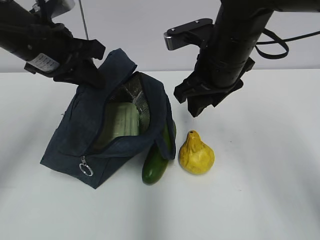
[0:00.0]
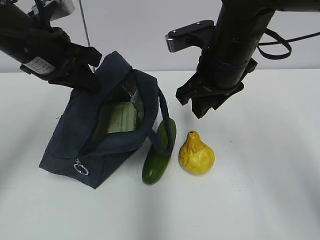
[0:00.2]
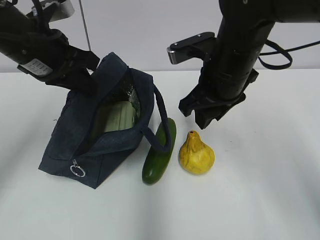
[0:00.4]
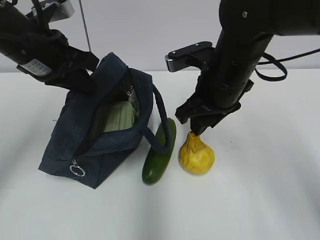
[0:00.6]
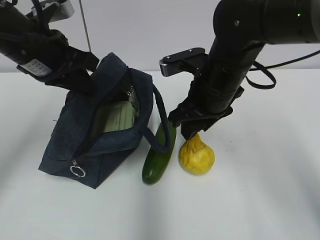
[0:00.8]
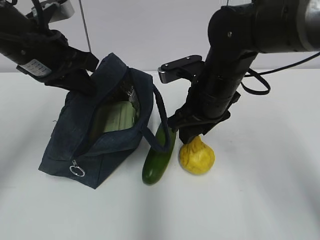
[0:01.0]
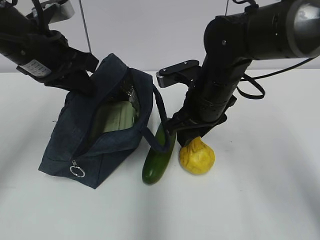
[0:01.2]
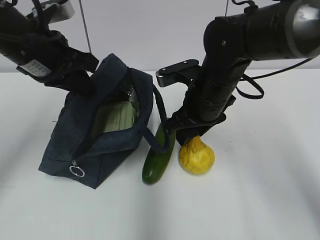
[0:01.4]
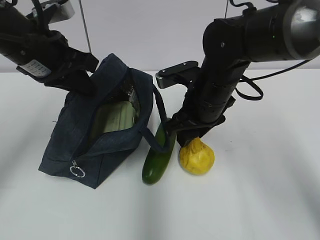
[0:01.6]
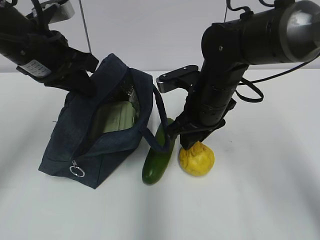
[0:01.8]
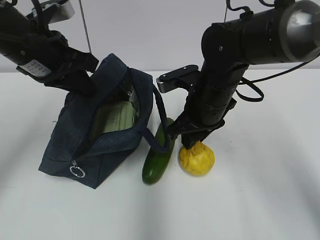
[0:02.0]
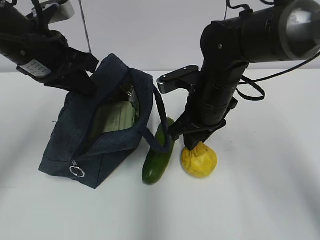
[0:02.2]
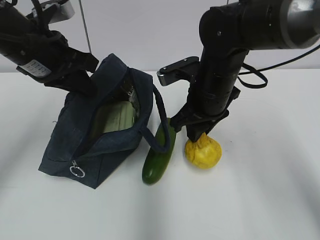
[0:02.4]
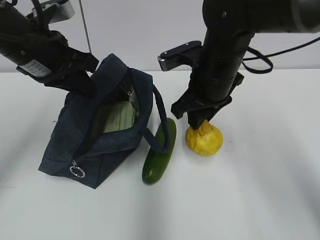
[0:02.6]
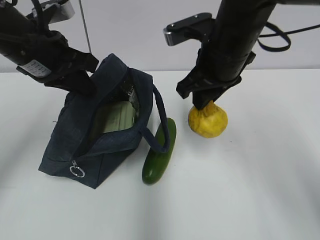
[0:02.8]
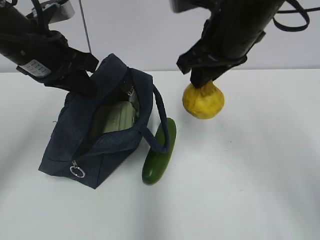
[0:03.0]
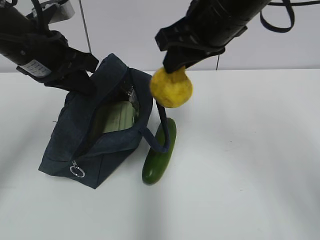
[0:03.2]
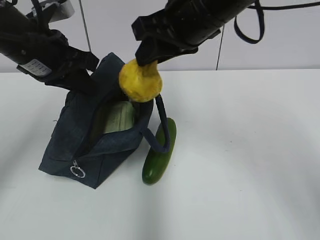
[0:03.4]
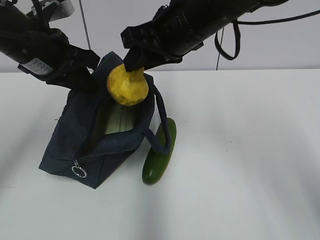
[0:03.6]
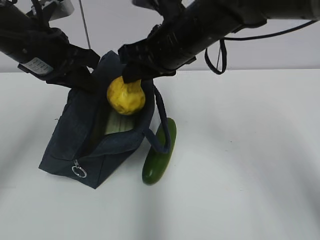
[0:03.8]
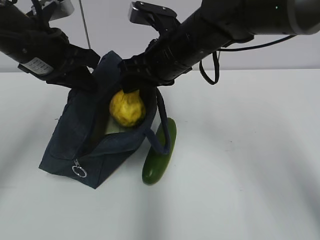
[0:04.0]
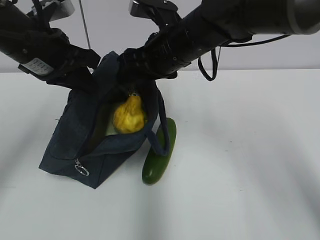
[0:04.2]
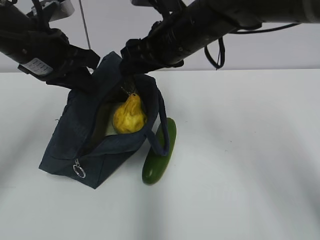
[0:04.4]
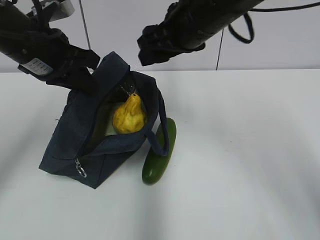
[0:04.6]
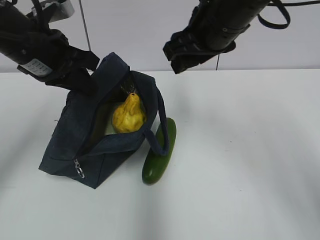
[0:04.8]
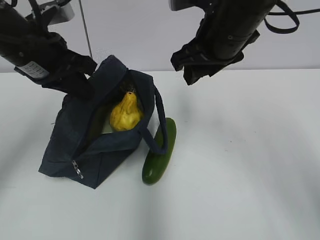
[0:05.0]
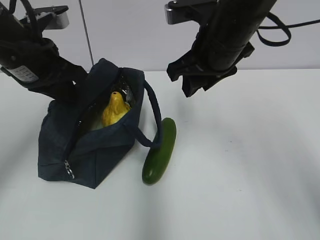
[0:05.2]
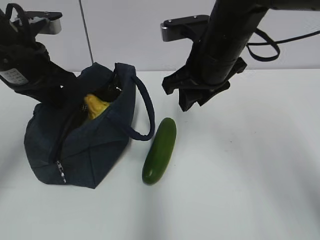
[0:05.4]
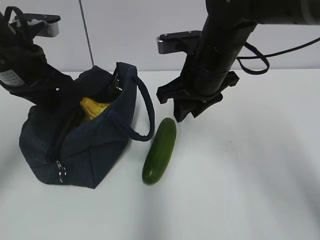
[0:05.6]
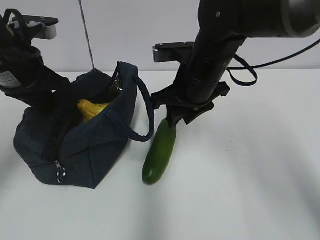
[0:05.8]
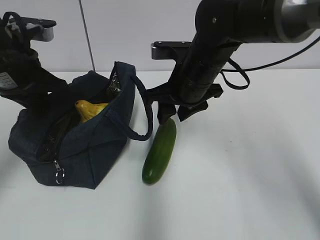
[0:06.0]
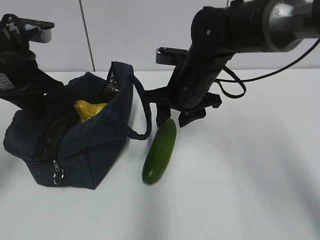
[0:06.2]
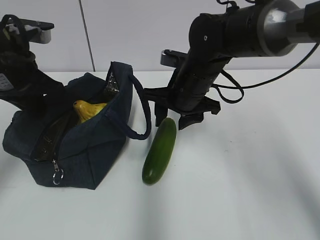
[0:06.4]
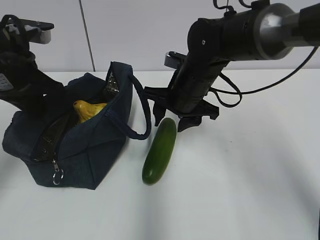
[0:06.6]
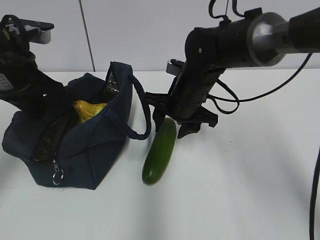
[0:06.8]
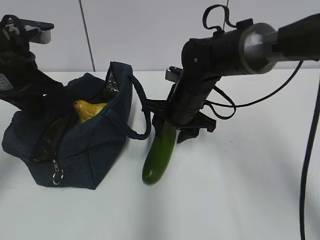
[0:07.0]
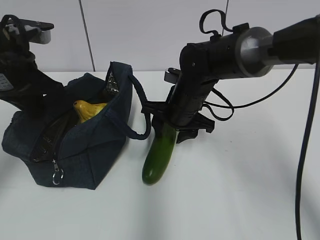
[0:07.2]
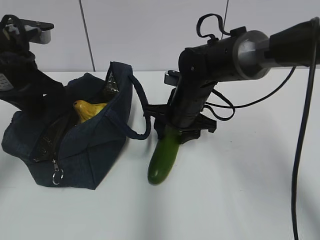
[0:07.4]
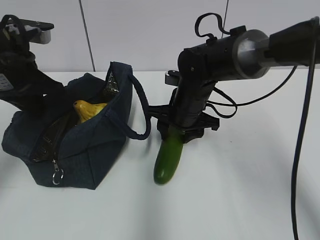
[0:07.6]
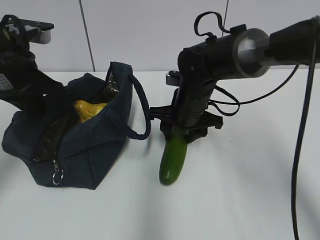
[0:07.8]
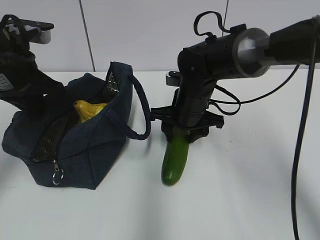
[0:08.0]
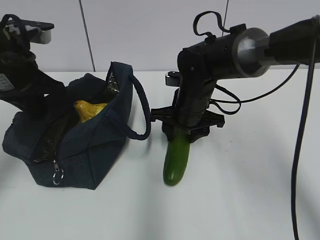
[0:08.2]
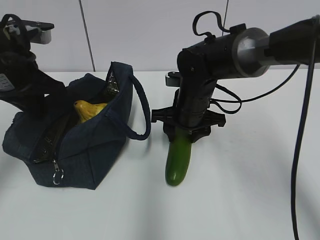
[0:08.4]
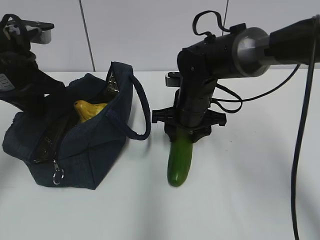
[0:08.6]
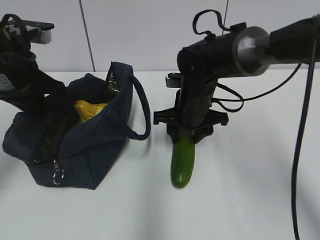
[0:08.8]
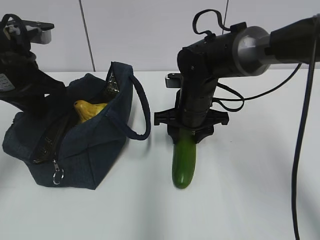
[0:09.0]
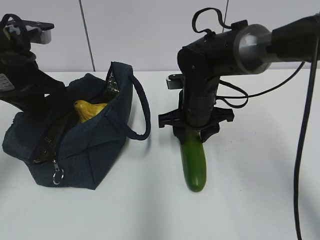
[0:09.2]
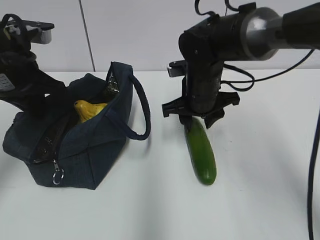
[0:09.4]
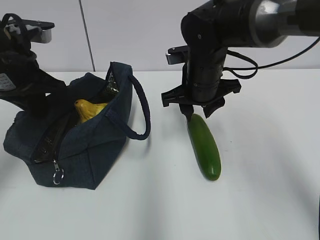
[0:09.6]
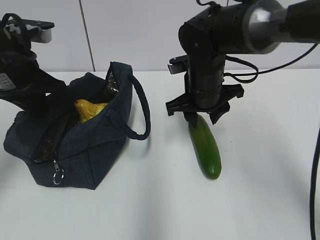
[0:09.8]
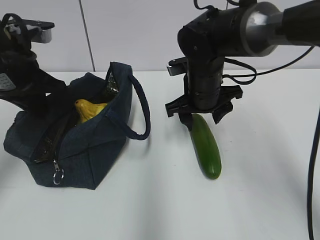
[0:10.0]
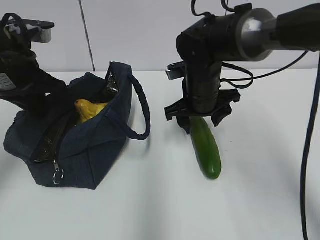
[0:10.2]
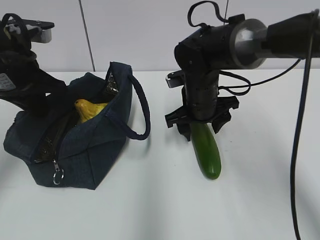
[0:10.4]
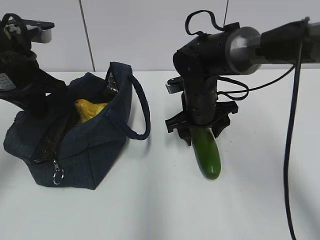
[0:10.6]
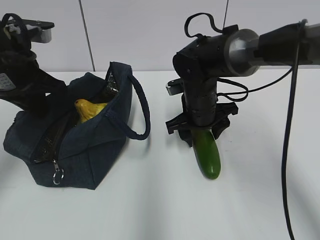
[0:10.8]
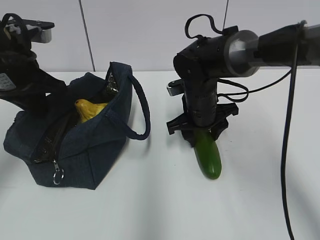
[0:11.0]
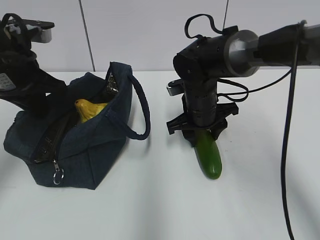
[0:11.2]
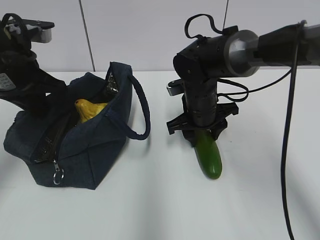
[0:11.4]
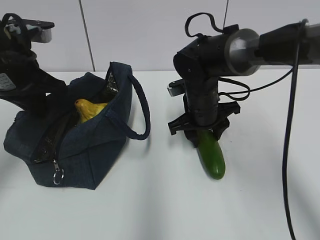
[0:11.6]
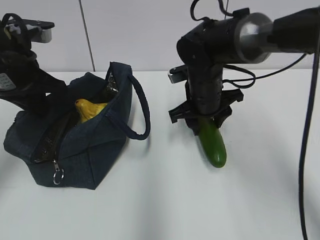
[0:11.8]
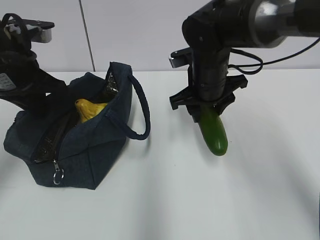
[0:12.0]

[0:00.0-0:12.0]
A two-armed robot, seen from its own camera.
Step, 0:00.0 to 0:01.6: Grab the pear with your right hand.
Step, 0:01.8 to 0:04.0: Place it into the bag with your right hand.
Step, 0:04.2 to 0:07.4: Grab the cucumber with your right hand.
0:00.0 to 0:01.6: The right gripper is displaced downward by approximately 5 cm.
0:01.6 to 0:03.0: The right gripper heads upward, covering approximately 15 cm.
0:03.0 to 0:04.4: The right gripper is displaced to the left by about 5 cm, and opens.
0:04.4 to 0:06.0: The right gripper moves downward, about 5 cm.
0:06.0 to 0:07.6: The right gripper heads downward, covering roughly 5 cm.
0:07.6 to 0:09.0: The grippers move only a little.
0:09.0 to 0:12.0: The grippers stay close to where they were, moving slightly.

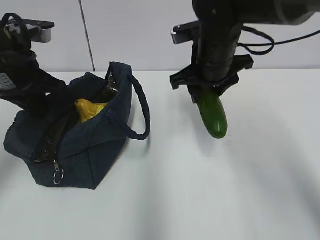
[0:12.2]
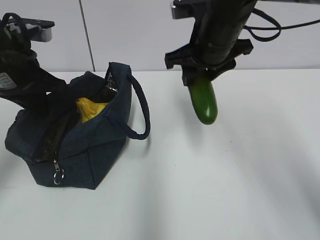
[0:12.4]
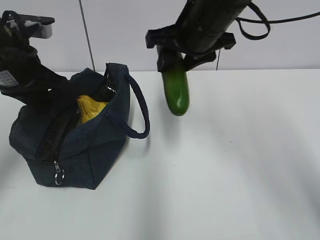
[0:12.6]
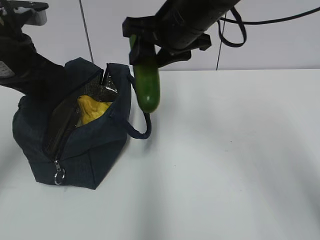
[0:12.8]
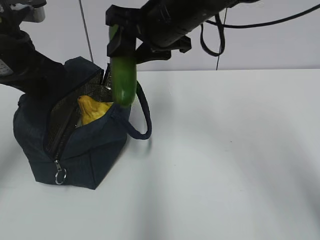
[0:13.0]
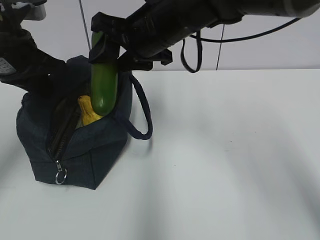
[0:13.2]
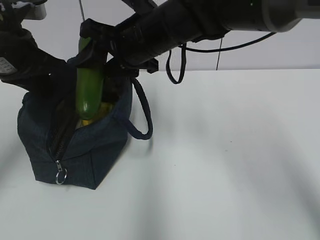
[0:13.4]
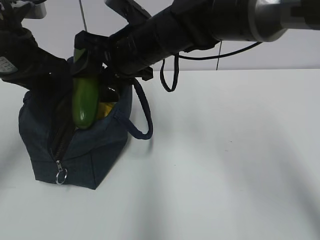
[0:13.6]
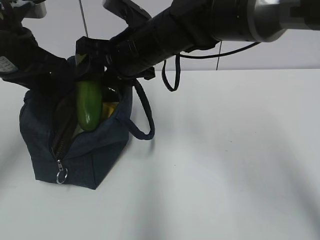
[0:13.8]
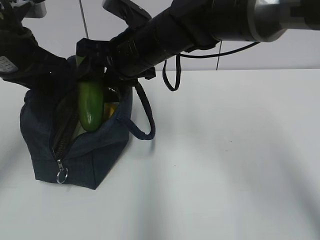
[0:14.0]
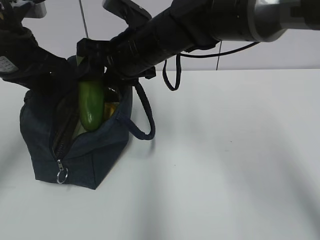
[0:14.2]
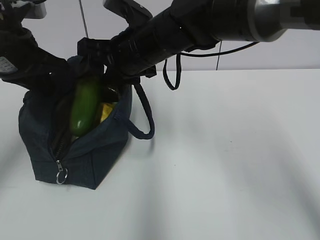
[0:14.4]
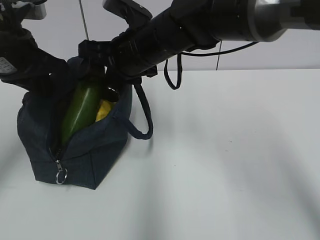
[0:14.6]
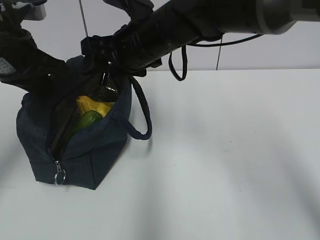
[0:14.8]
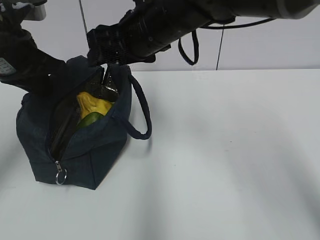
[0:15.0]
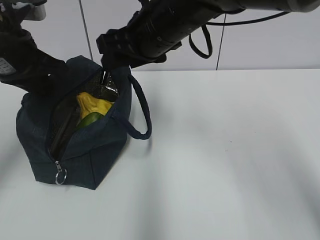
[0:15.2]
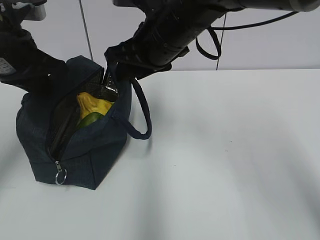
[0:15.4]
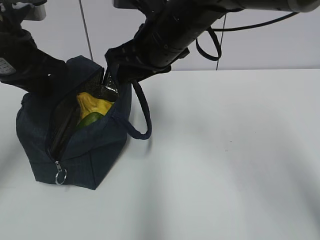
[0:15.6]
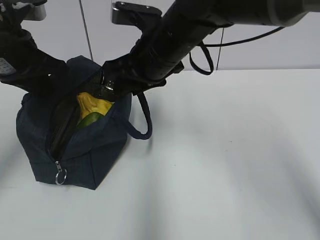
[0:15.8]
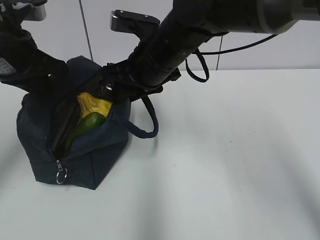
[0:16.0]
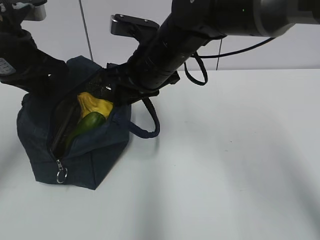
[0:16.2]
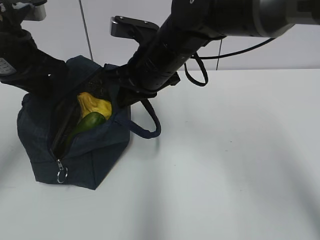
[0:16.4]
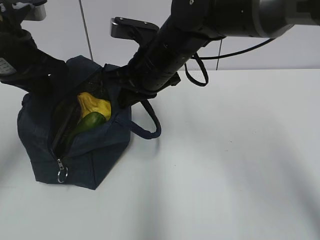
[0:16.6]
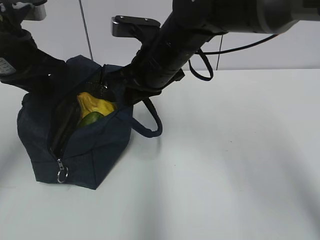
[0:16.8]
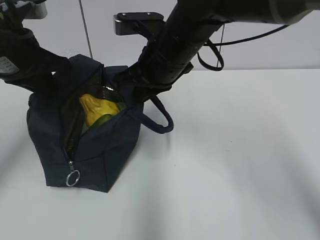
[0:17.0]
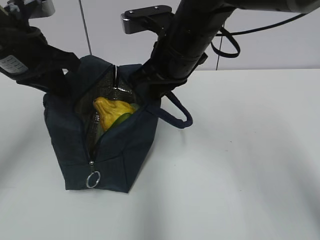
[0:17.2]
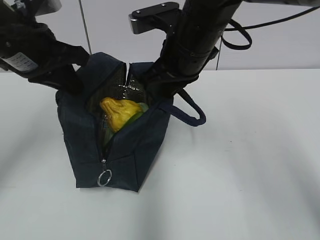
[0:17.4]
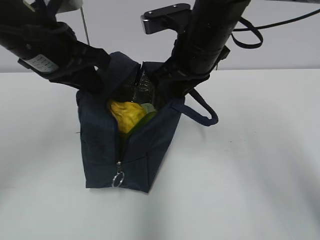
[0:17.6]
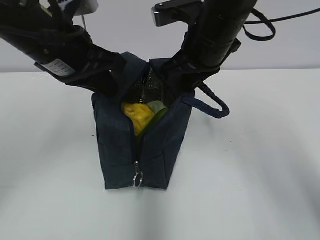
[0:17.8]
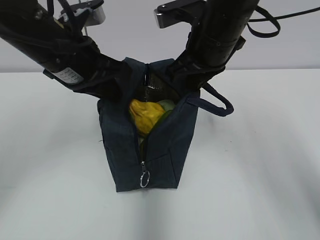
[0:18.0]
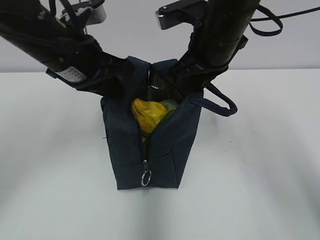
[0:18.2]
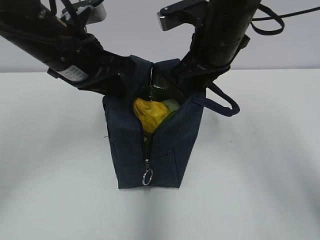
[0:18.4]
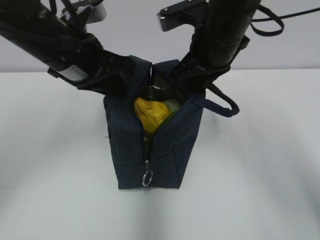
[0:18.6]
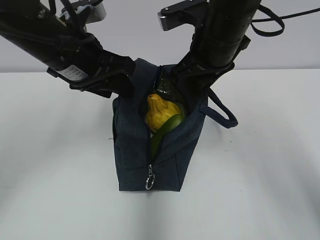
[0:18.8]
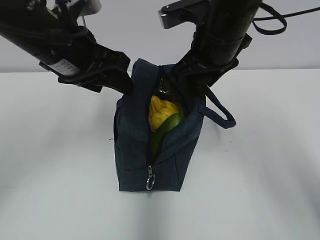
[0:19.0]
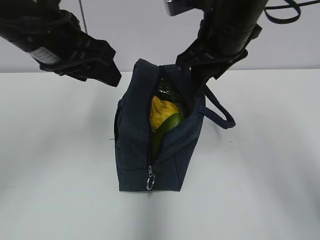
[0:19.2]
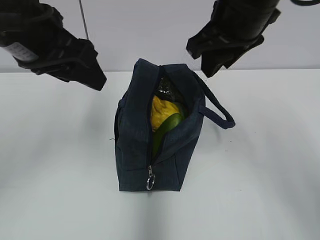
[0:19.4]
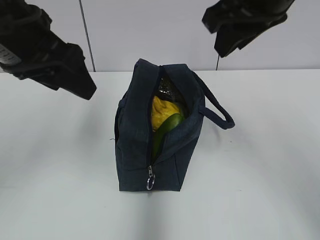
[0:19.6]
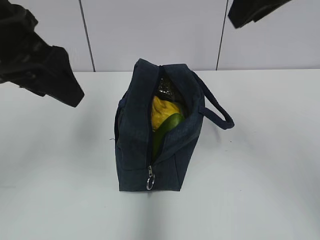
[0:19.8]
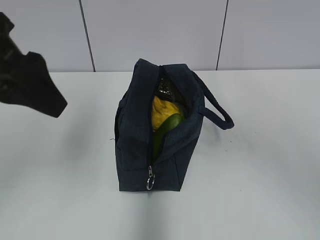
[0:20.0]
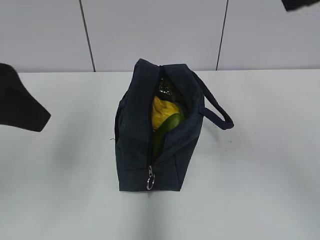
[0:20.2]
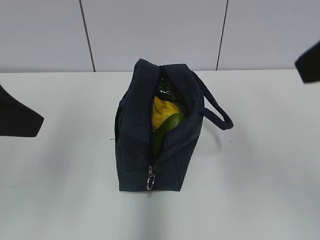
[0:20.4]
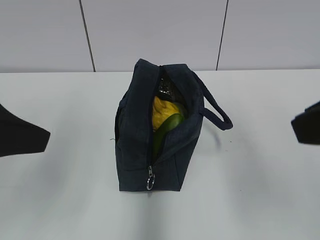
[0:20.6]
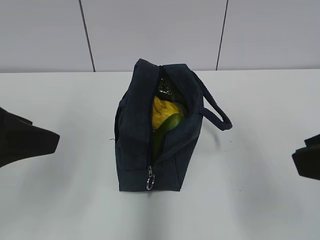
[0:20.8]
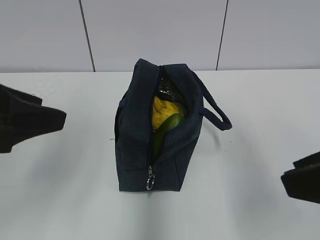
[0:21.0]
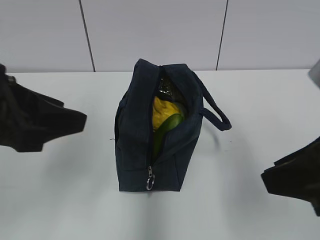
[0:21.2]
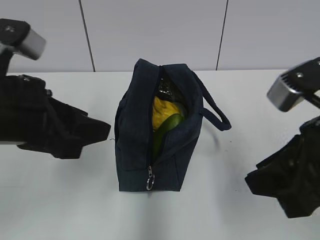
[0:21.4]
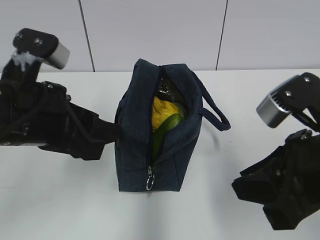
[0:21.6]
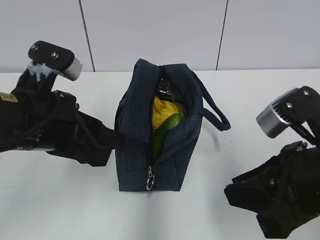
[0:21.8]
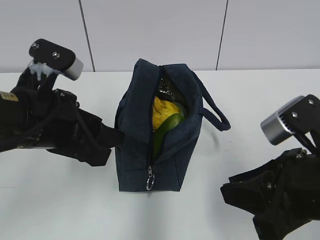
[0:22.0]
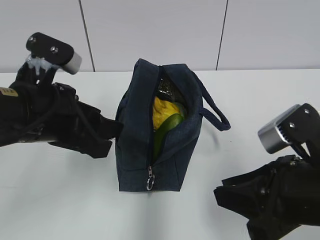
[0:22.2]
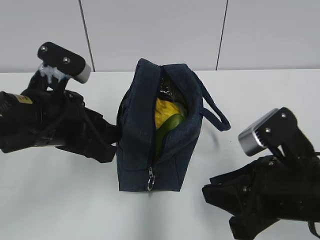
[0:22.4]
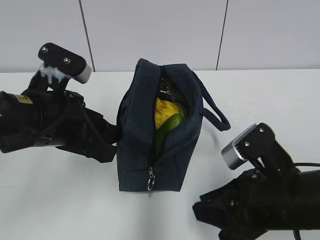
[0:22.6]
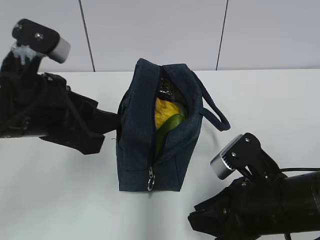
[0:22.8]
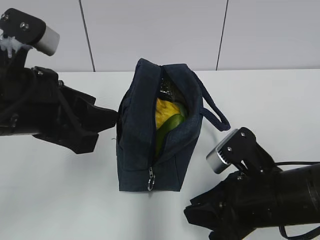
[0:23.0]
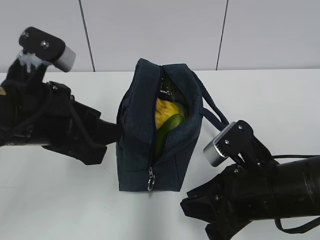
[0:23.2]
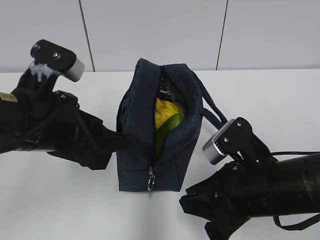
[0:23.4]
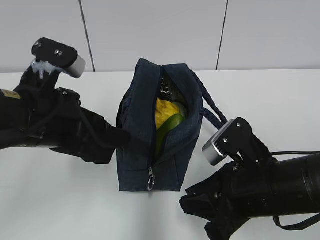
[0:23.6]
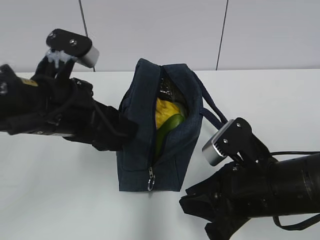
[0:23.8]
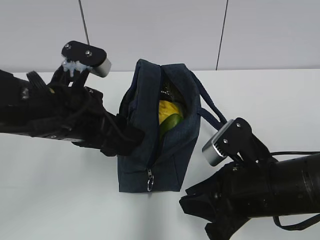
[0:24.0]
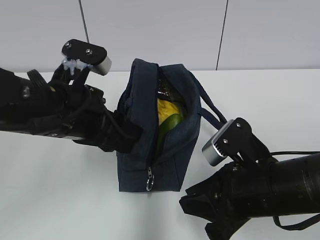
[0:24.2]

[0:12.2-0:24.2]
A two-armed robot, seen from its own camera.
Step, 0:15.0 to 0:16.8: Grab the lunch bag with your right hand.
Step, 0:17.0 to 0:18.6: Move the lunch bag to the right.
0:12.2 to 0:13.8: The right gripper travels to the left by roughly 10 cm.
0:15.2 to 0:16.6: The right gripper goes roughly 5 cm downward, and closes up.
0:16.6 to 0:18.2: Both grippers travel together to the right, roughly 10 cm.
0:18.2 to 0:19.8: The left gripper goes roughly 10 cm backward and upward, and opens up. The right gripper moves upward and backward, roughly 15 cm, and opens up.
0:19.8 to 0:21.2: The right gripper shifts about 20 cm downward and backward; the left gripper heads backward and downward, covering approximately 10 cm.
0:21.2 to 0:22.6: The left gripper moves downward, roughly 5 cm; the right gripper is displaced downward by about 15 cm.
0:22.6 to 0:24.2: The grippers make only small movements.
